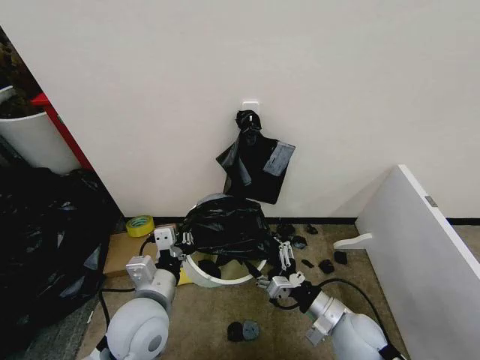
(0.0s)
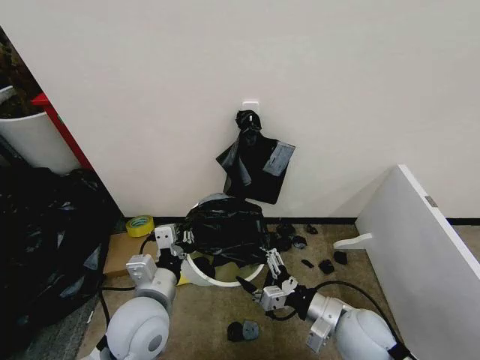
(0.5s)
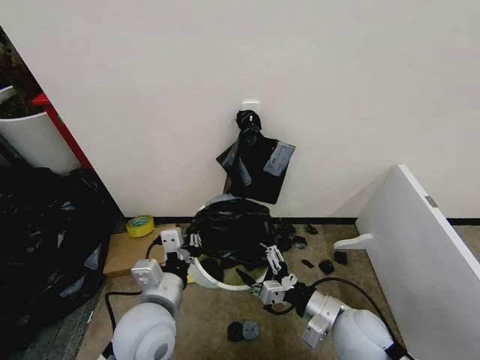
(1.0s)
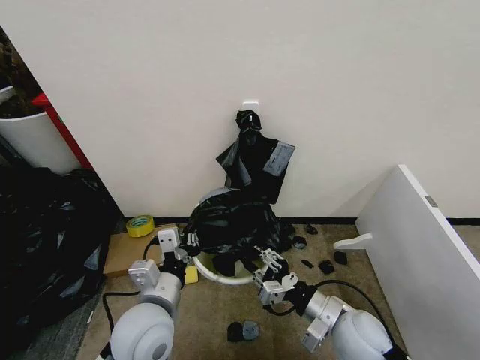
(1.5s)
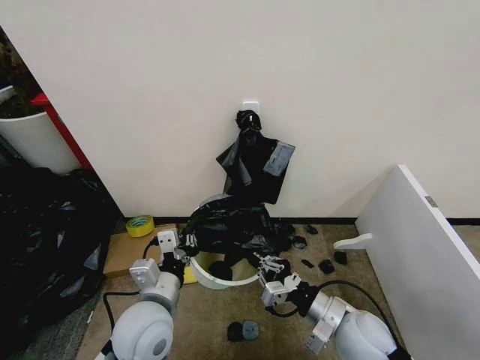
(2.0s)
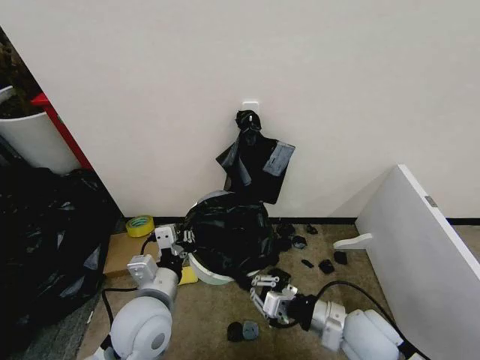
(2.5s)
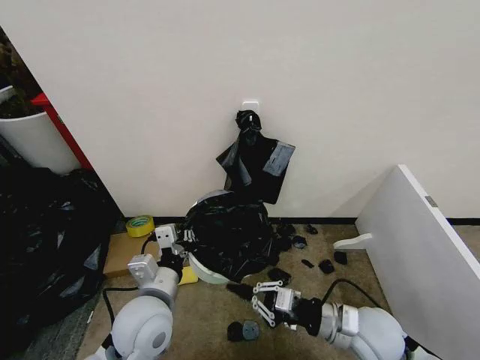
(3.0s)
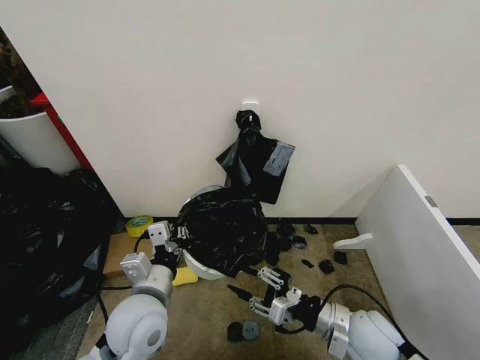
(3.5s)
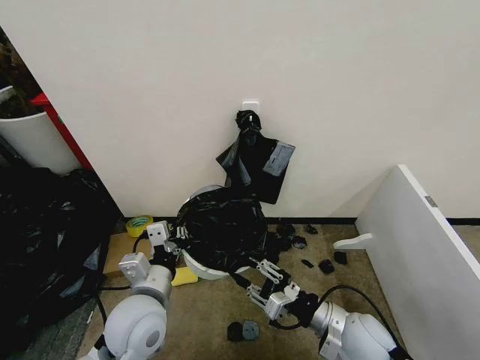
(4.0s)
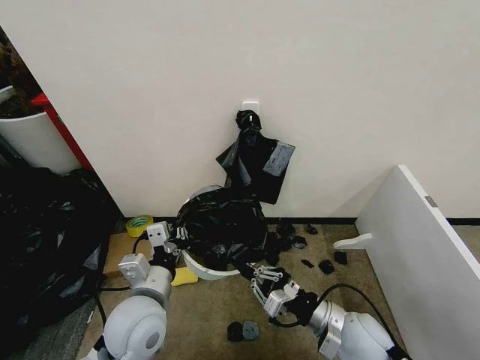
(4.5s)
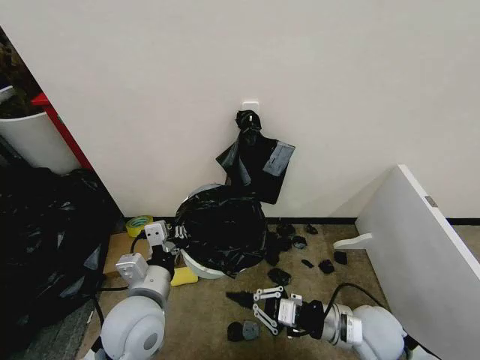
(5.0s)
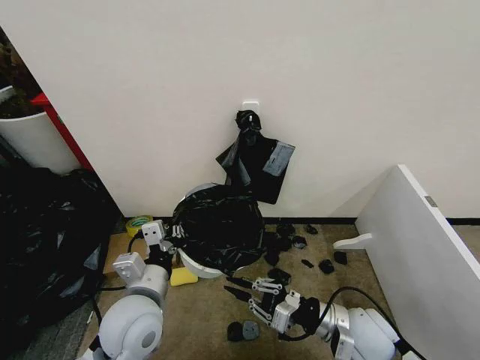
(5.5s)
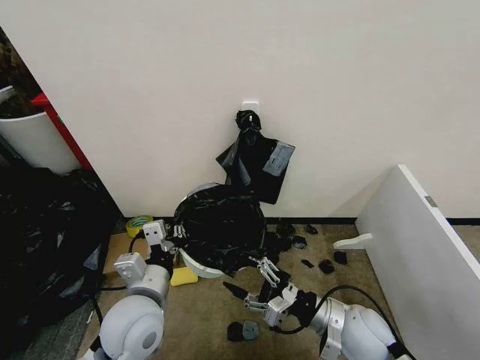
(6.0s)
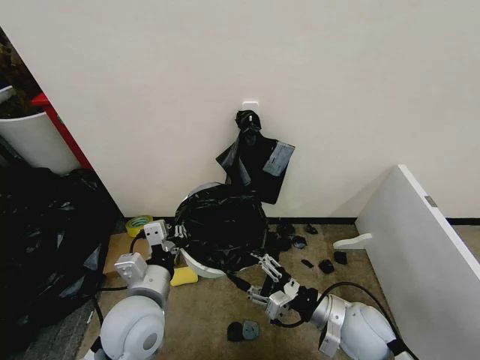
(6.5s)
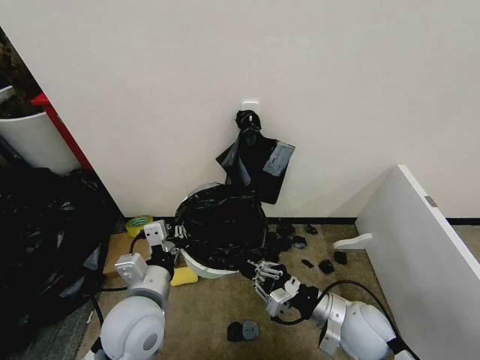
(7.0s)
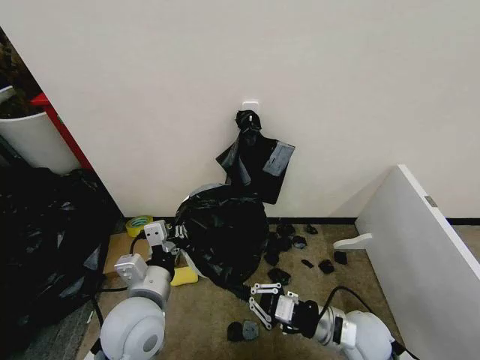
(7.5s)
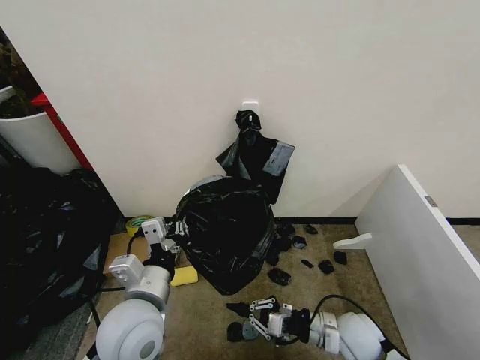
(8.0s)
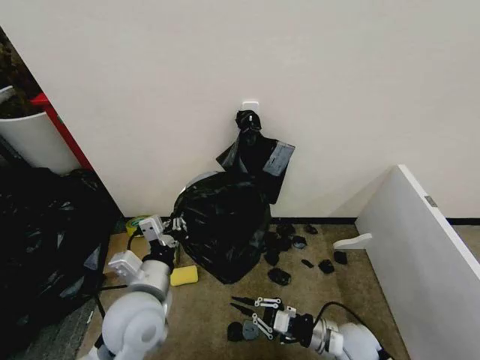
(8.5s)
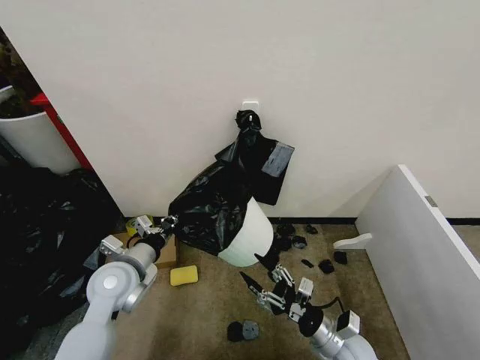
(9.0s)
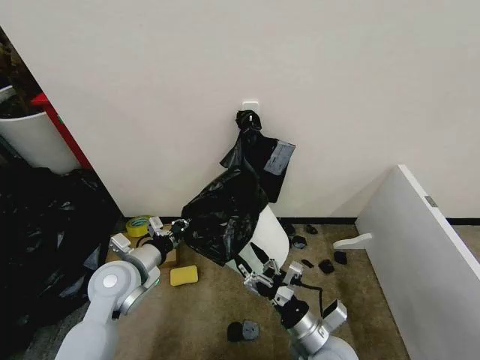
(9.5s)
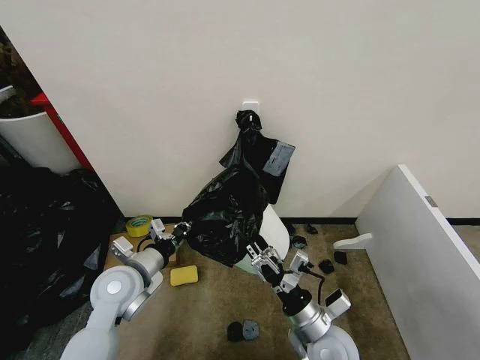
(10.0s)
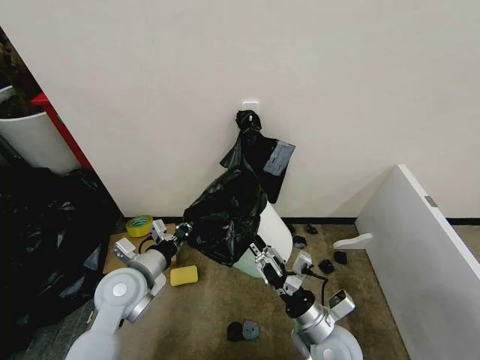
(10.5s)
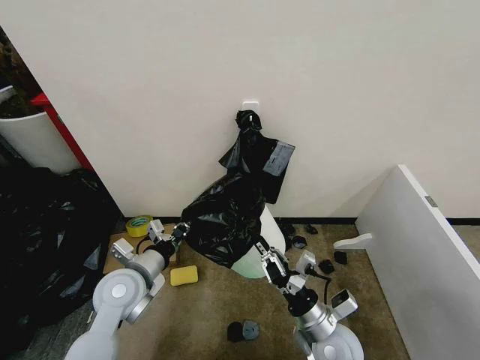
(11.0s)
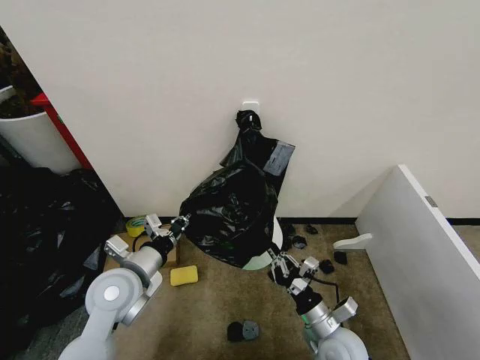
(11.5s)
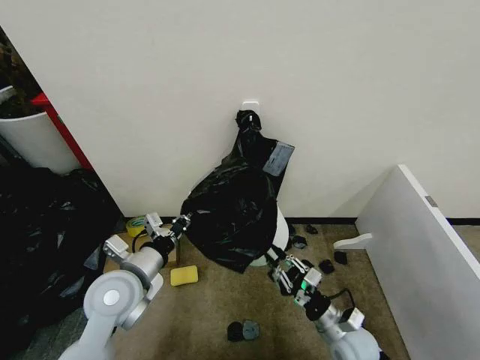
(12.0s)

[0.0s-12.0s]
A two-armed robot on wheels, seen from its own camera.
Task of the whole recording: Place the garbage bag over the trash bin.
0.0s to 2.0s: The right gripper closes.
2.0s to 4.0s: The right gripper opens its fingers.
4.0s to 6.0s: The right gripper closes, then reopens.
6.0s to 8.0s: The right gripper is displaced downward by about 5 cm, and closes.
8.0s to 10.0s: The right gripper travels to the left by about 5 cm, and opens; the left gripper shifts roughly 10 cm forward and to the left.
10.0s to 12.0s: The right gripper goes approximately 10 cm to the right and downward, and closes.

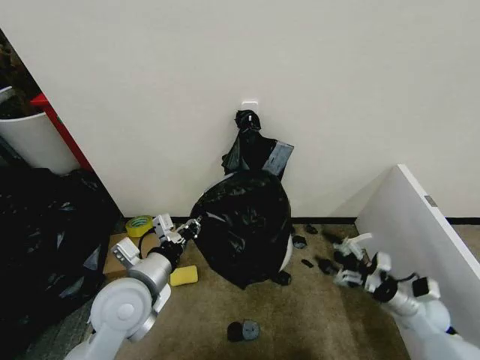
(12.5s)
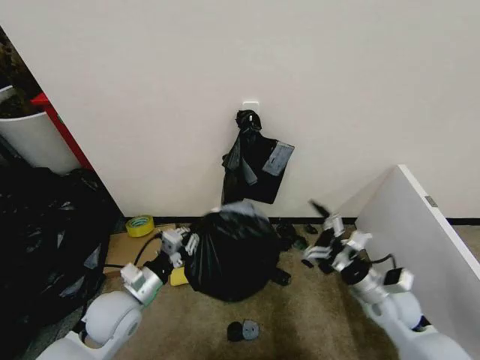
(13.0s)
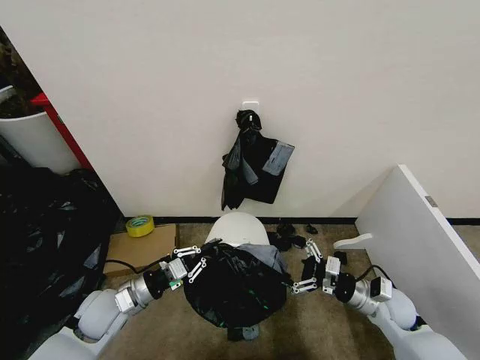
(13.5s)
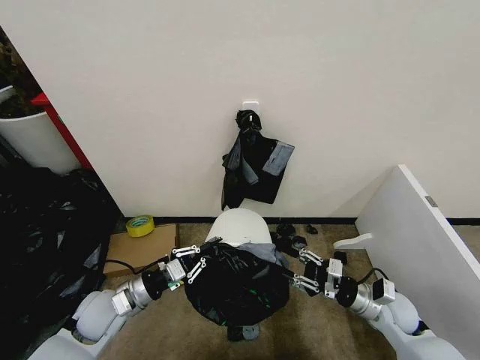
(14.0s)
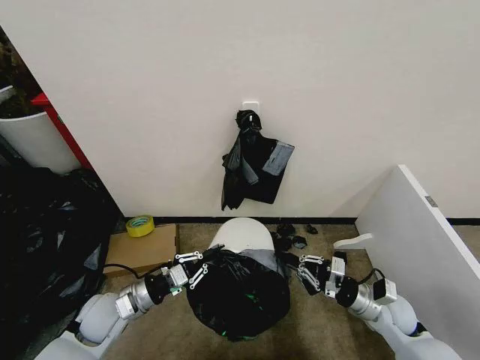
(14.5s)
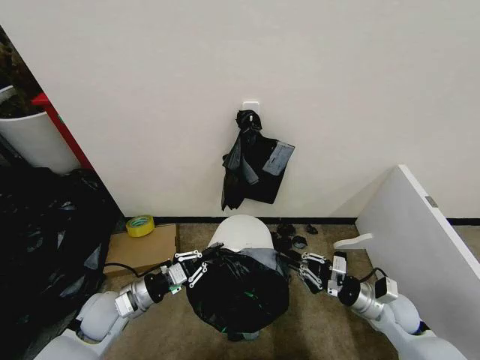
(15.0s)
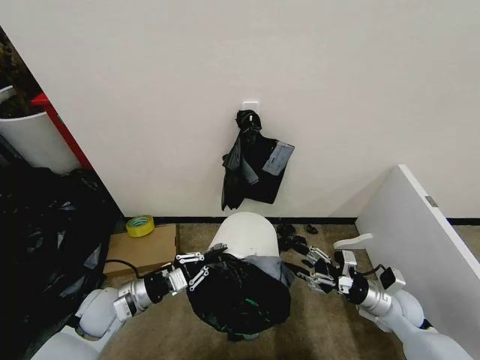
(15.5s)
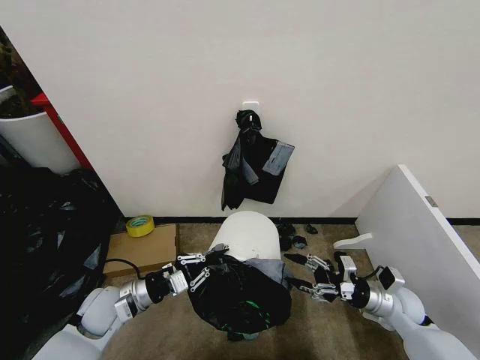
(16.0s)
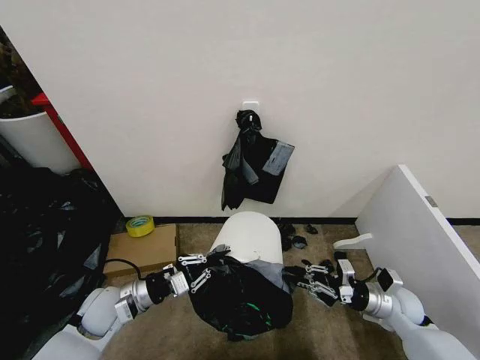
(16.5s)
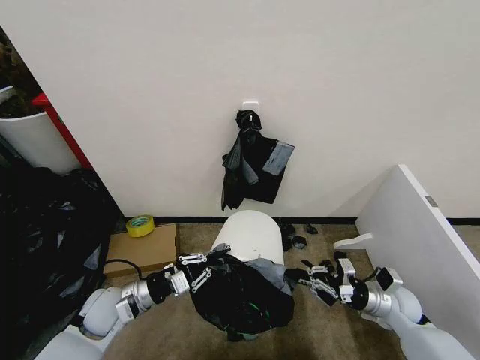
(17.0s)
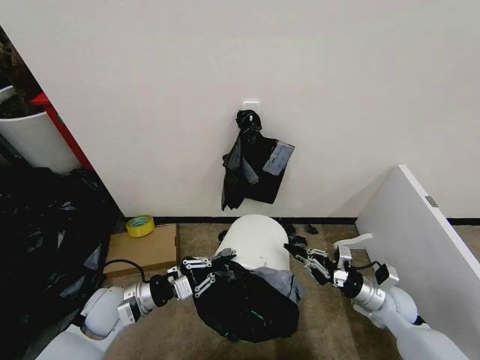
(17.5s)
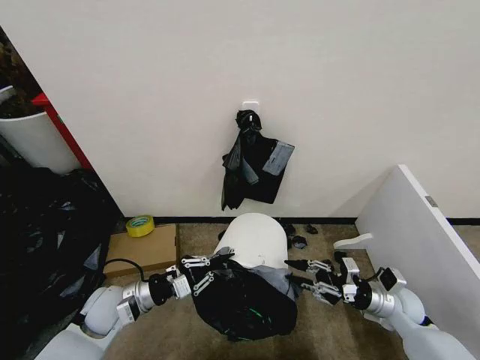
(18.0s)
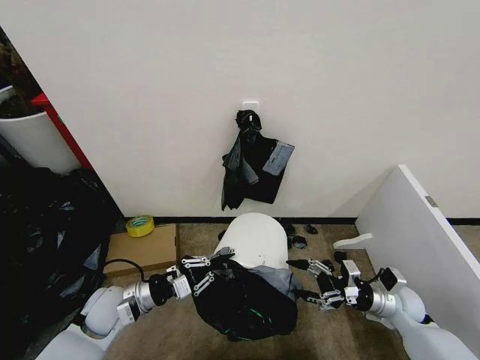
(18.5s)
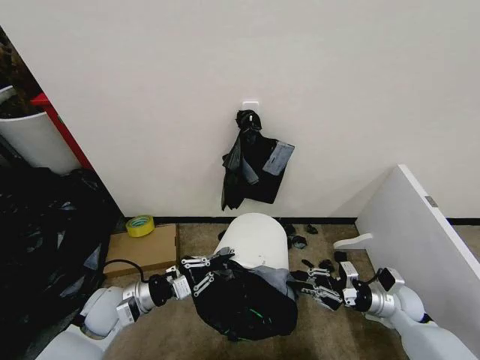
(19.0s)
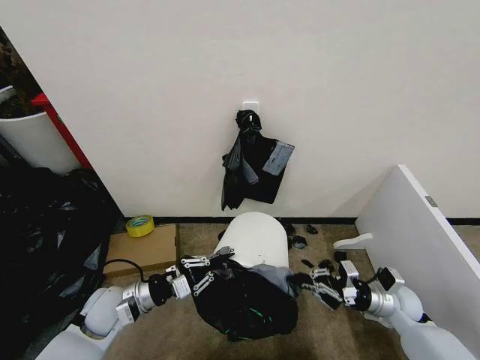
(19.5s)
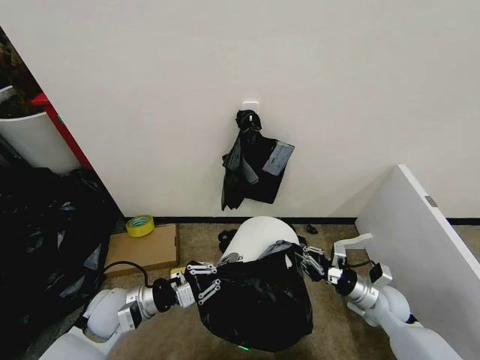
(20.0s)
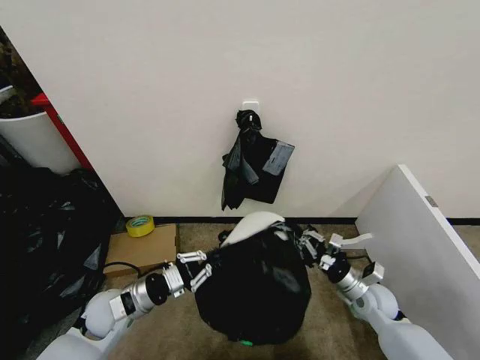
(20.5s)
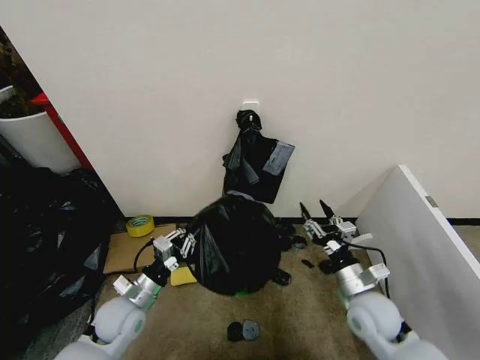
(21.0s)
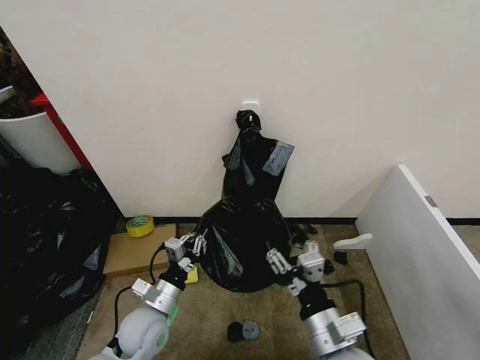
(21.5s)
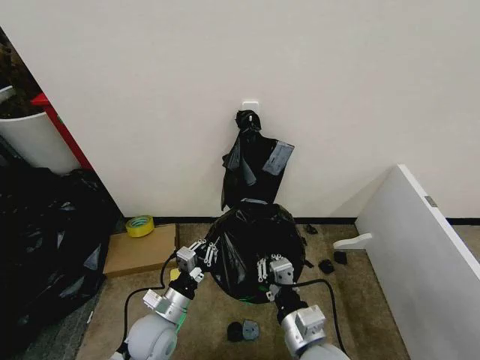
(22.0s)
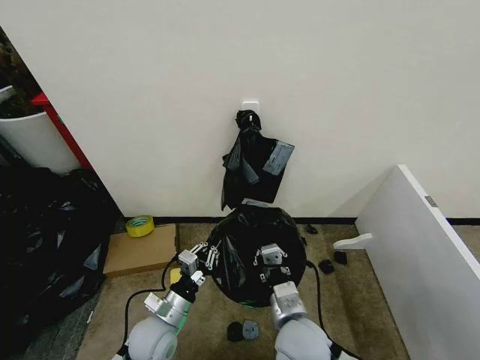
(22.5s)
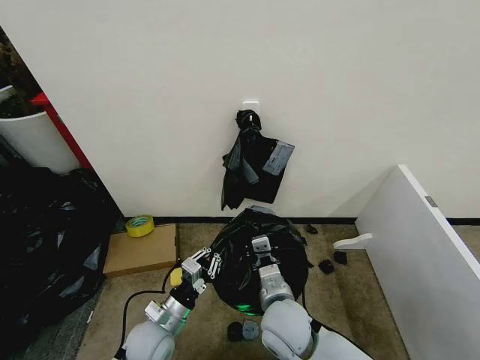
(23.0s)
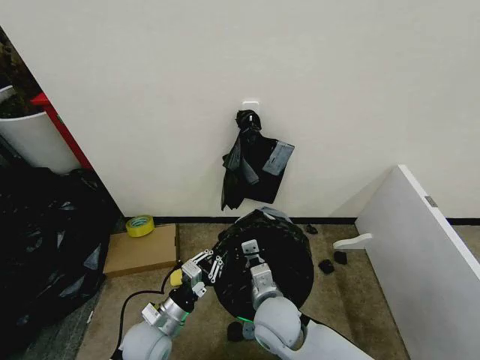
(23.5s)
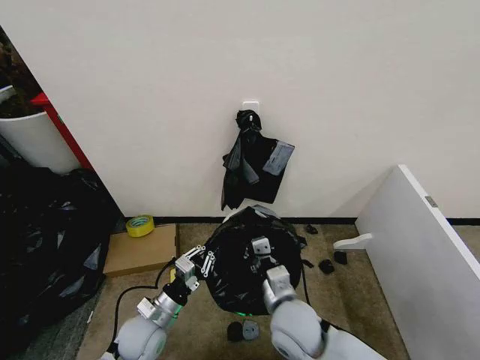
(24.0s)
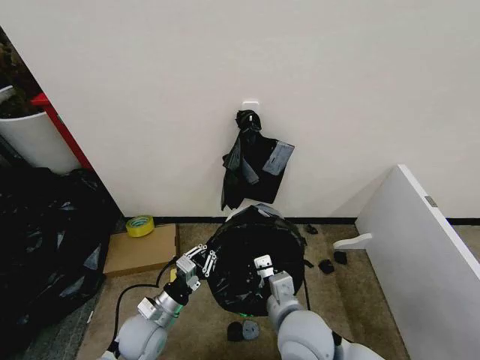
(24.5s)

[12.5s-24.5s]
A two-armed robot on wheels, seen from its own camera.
Task of the whole recording: Place the garbage bag over the trash bin.
12.5s to 14.5s: The left gripper heads downward and to the left, covering some 15 cm, while the right gripper is displaced to the left by roughly 10 cm, and closes up.
14.5s to 16.5s: The right gripper opens, then closes once more.
16.5s to 18.5s: The right gripper opens up.
18.5s to 20.5s: The right gripper shifts about 5 cm to the left, and closes.
20.5s to 22.5s: The right gripper shifts some 30 cm to the left, backward and upward, and opens and closes again; the left gripper moves to the right, some 10 cm.

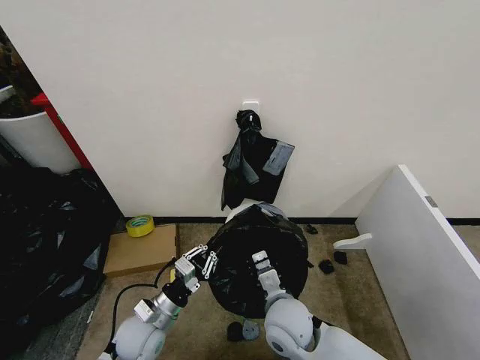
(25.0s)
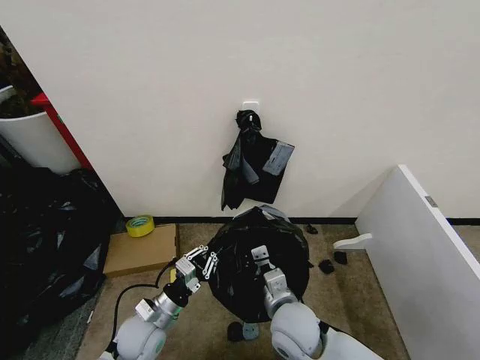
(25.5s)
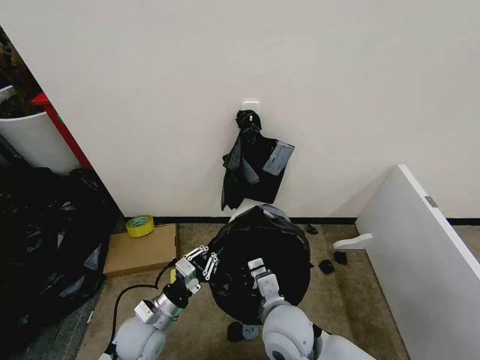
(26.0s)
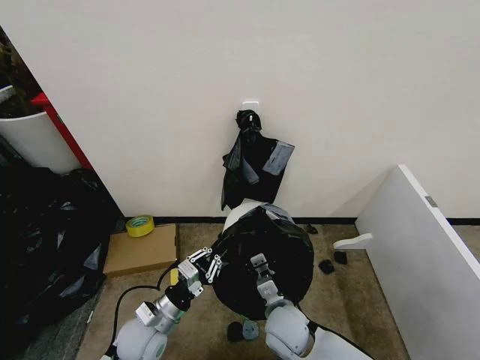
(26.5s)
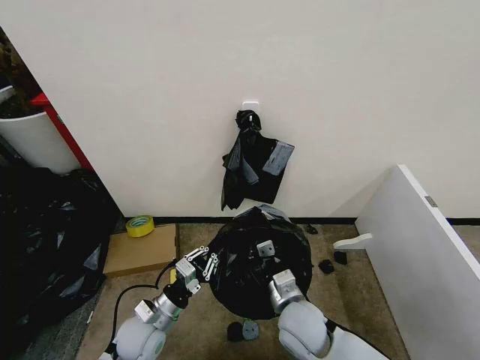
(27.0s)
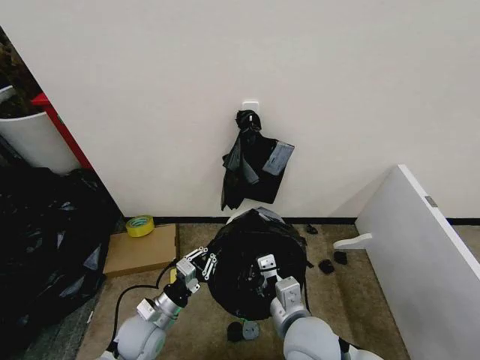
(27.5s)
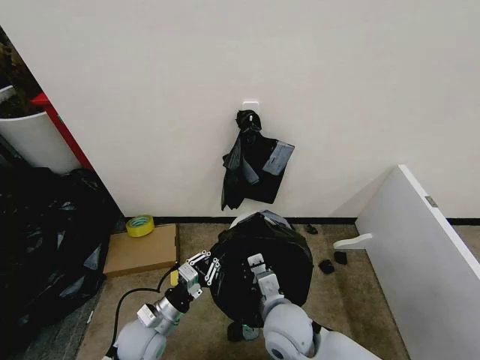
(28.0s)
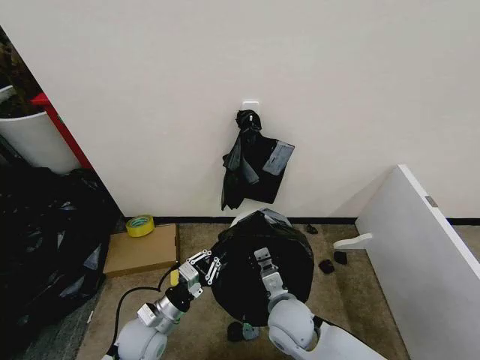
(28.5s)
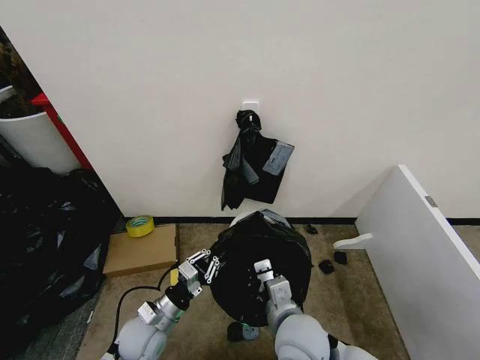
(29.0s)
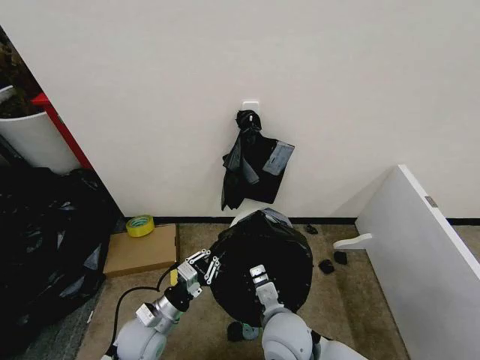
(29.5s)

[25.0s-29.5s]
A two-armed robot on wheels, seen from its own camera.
Task of the whole recording: Place the garbage bag over the trash bin.
27.0s to 29.5s: The right gripper swings up and down, approximately 5 cm each way, with 2 reversals.
